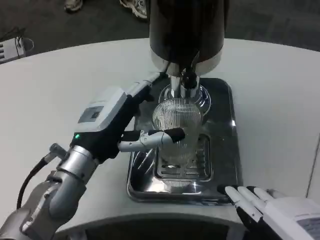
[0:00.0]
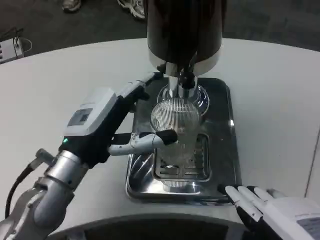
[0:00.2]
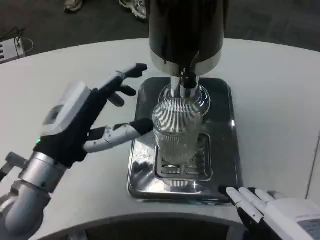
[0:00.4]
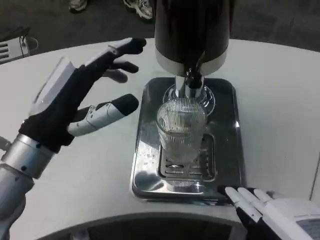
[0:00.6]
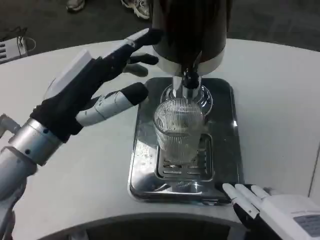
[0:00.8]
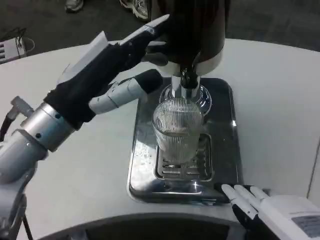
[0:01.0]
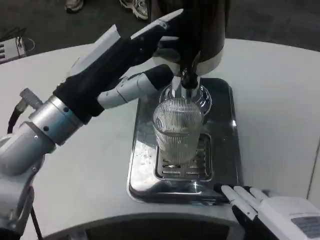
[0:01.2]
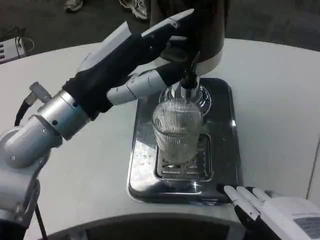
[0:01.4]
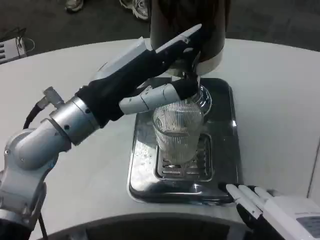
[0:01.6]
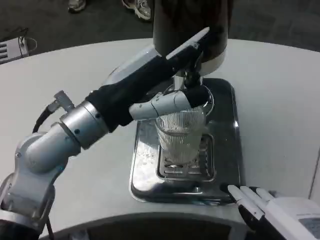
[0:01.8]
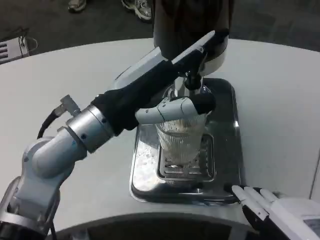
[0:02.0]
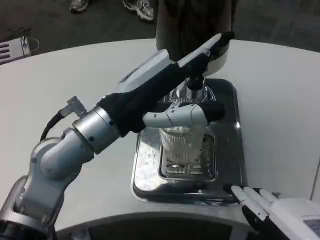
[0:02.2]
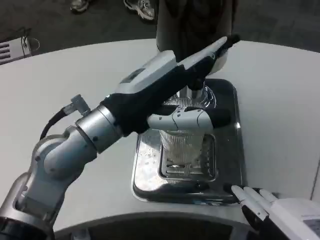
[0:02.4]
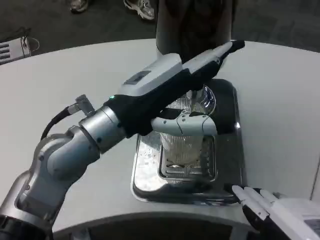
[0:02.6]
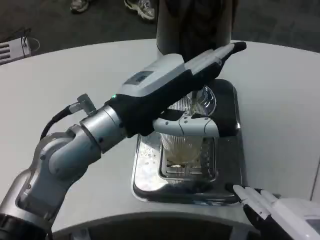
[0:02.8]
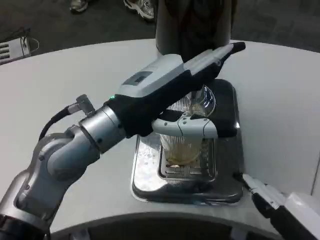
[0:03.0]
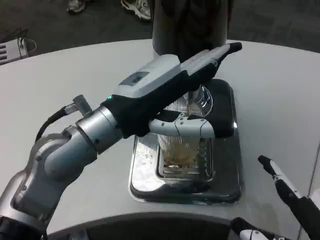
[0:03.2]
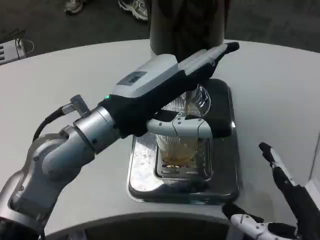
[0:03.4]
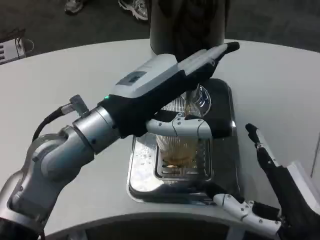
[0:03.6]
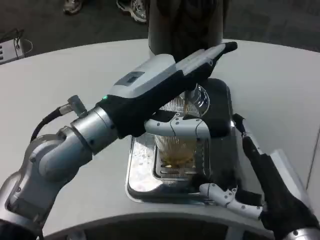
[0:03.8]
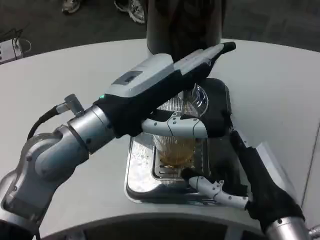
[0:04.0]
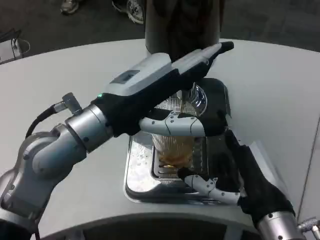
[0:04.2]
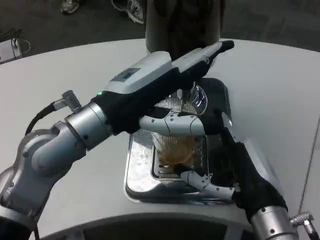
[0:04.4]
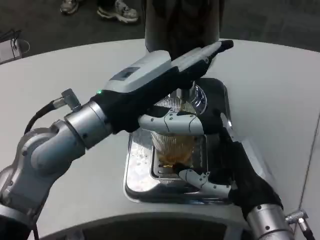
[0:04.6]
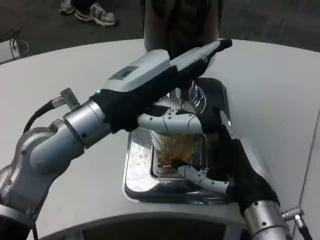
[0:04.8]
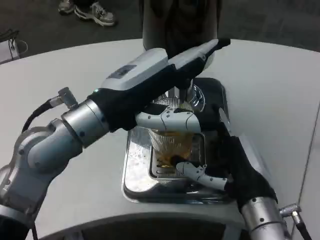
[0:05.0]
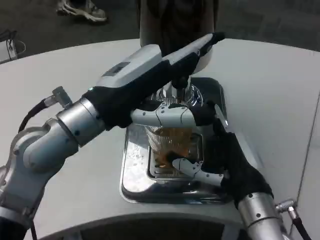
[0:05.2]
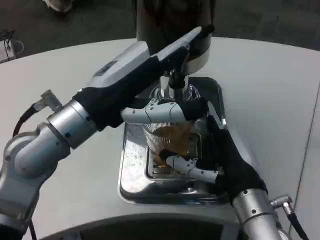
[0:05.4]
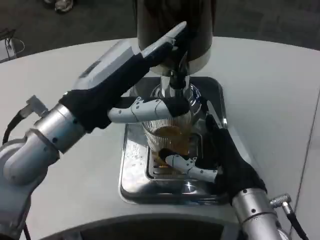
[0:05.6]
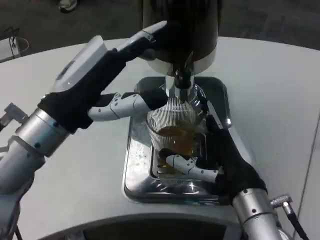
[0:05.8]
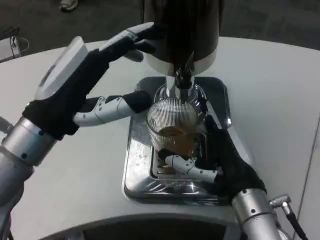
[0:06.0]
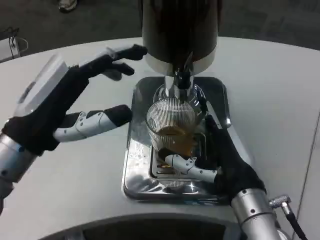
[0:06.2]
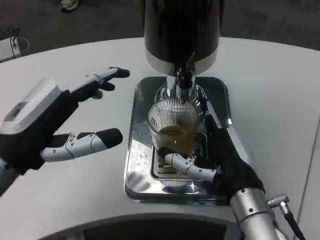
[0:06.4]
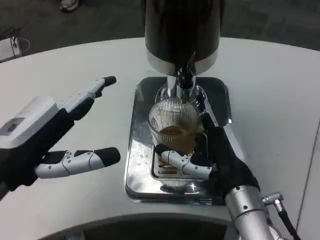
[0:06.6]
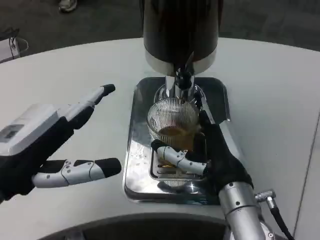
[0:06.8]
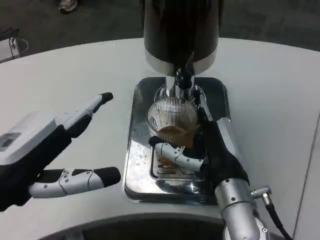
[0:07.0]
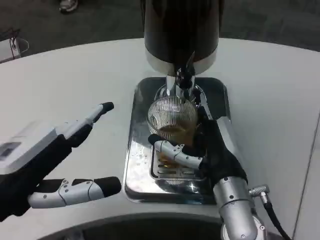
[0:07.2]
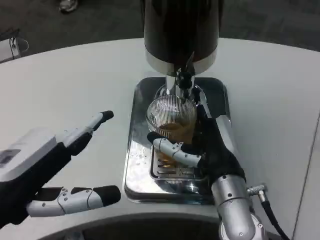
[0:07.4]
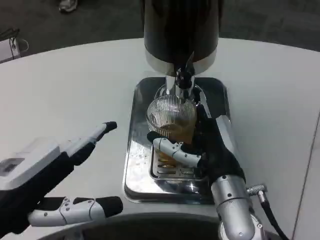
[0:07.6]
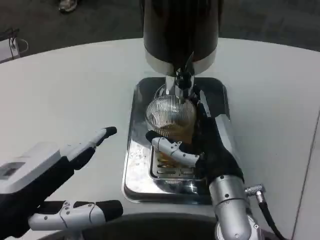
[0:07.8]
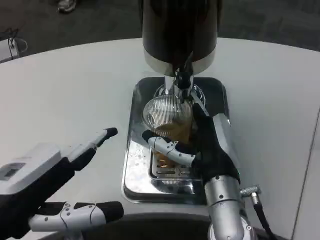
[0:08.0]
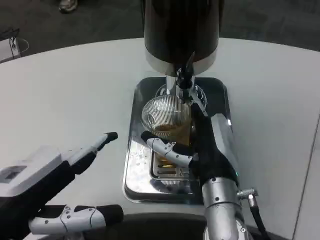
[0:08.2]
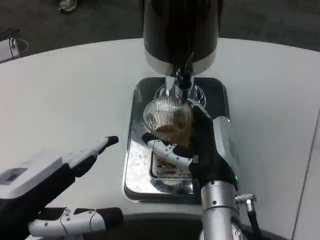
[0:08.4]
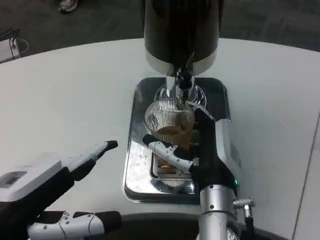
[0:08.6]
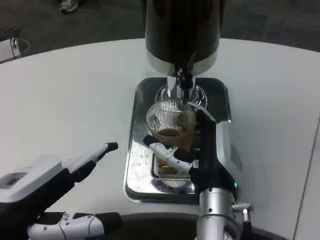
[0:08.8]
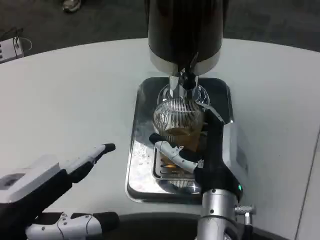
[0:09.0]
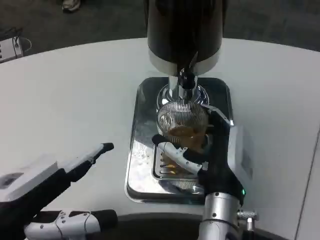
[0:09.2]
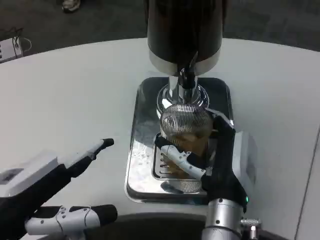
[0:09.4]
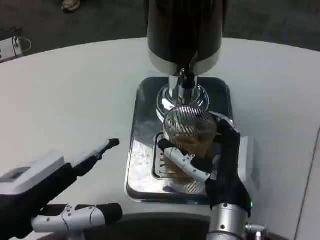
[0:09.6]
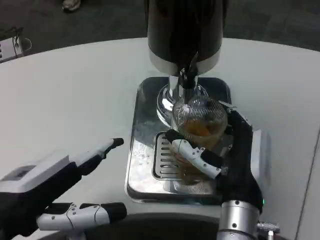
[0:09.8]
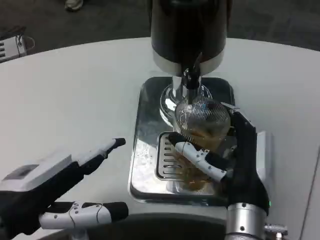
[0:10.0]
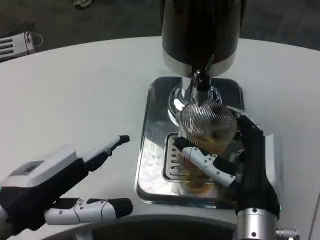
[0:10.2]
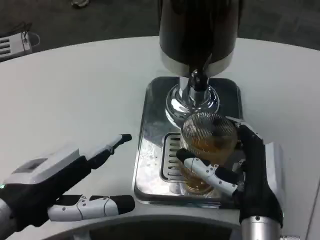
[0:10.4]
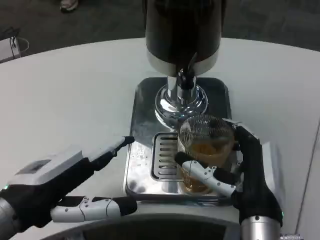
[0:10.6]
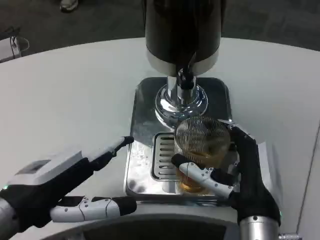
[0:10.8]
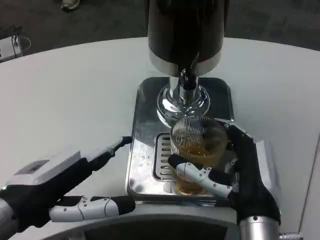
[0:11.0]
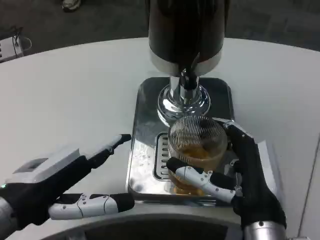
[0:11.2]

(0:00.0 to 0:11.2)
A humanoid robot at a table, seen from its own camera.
Task of the whole recording: Grasp the cup under the faucet to collect the drink, then remove the cup.
0:00.0 - 0:01.6: The left hand is displaced upward by roughly 10 cm.
0:03.2 - 0:04.8: The right hand moves forward and to the left, roughly 15 cm.
0:04.8 - 0:06.4: The left hand is displaced to the left, backward and downward by some 10 cm.
0:06.4 - 0:08.0: The left hand shifts roughly 10 cm backward.
0:09.6 - 0:11.2: The right hand moves to the right, roughly 5 cm.

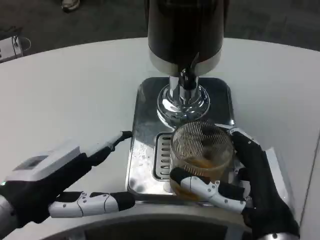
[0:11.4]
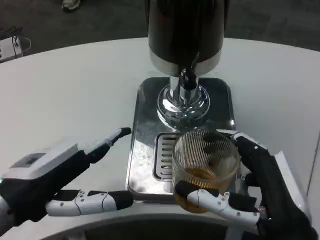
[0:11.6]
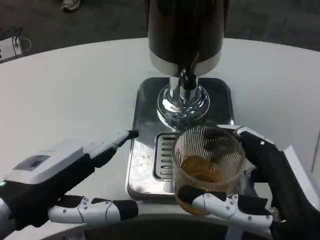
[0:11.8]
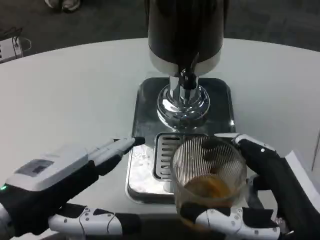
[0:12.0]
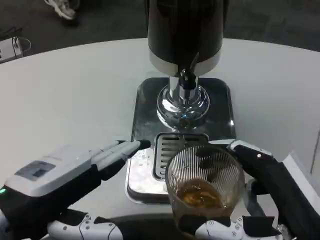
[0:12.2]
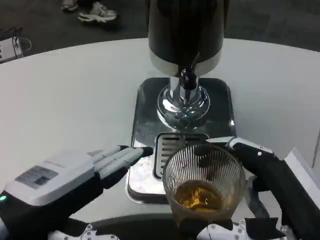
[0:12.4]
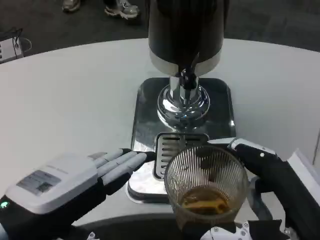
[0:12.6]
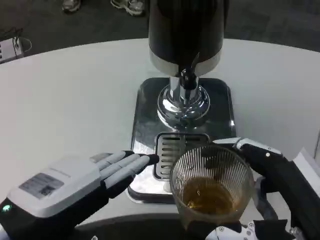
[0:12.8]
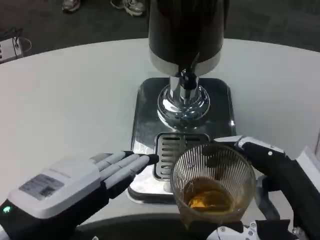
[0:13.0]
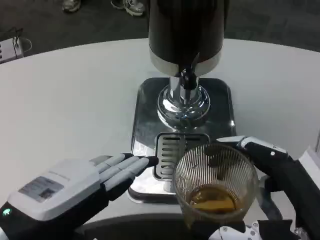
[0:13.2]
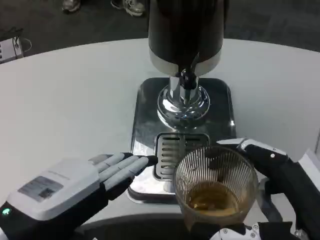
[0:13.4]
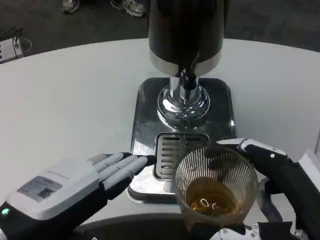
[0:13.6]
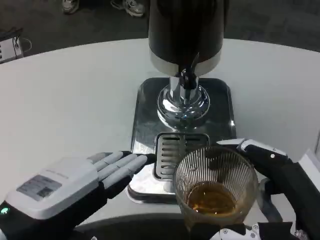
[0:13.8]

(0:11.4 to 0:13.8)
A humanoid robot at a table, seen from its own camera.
Task of the whole recording: Grasp the cup under the faucet to collect the drink, then remove the cup.
0:11.4 - 0:12.6: The right hand travels backward and to the right by approximately 10 cm.
0:12.6 - 0:13.8: Both hands stay about where they are.

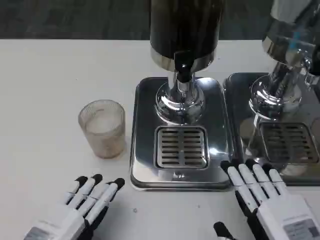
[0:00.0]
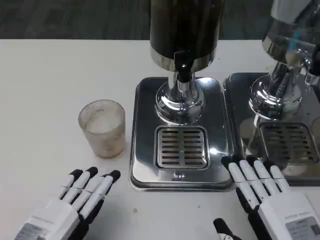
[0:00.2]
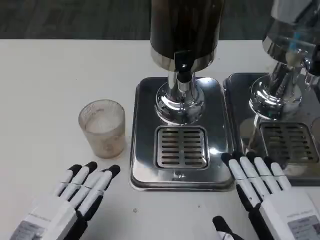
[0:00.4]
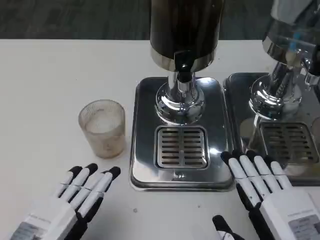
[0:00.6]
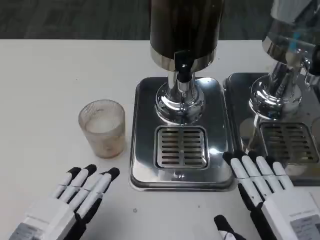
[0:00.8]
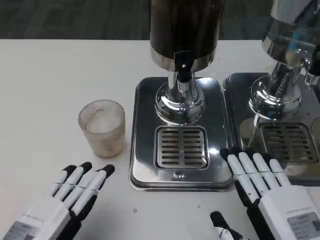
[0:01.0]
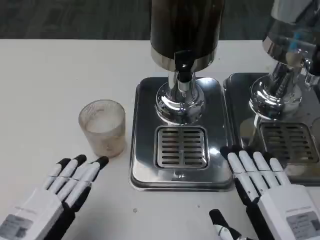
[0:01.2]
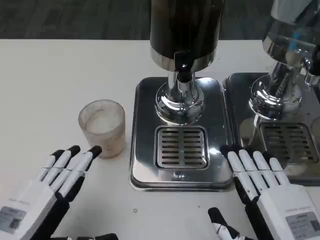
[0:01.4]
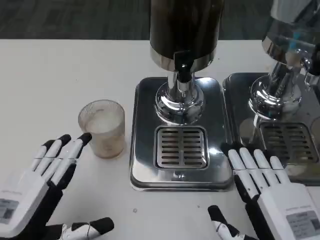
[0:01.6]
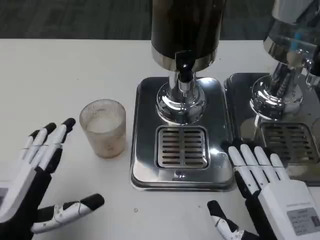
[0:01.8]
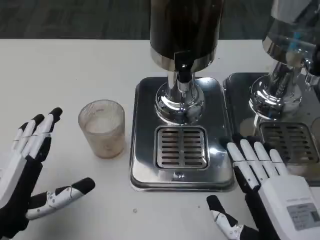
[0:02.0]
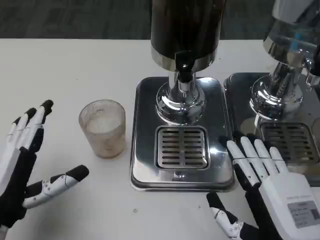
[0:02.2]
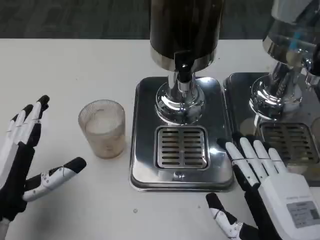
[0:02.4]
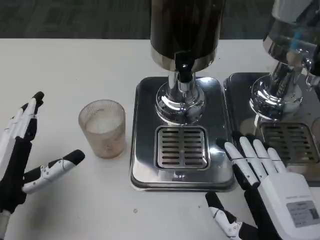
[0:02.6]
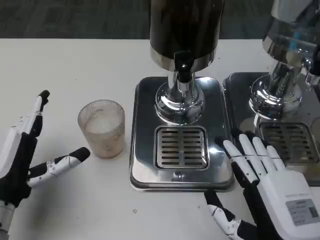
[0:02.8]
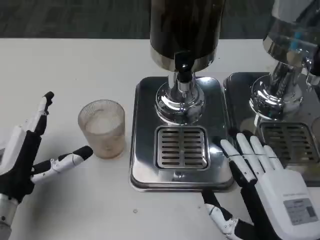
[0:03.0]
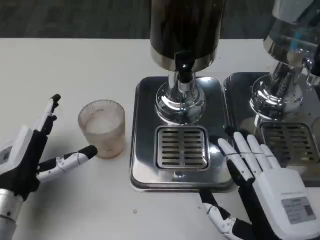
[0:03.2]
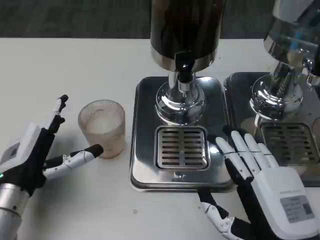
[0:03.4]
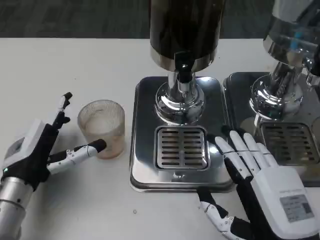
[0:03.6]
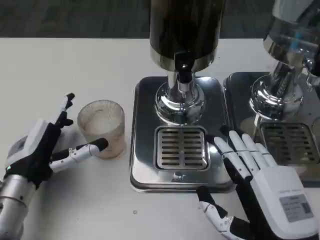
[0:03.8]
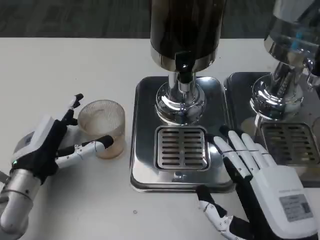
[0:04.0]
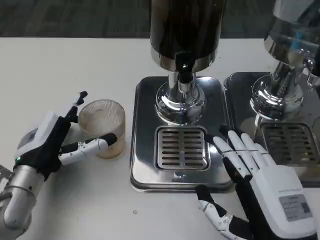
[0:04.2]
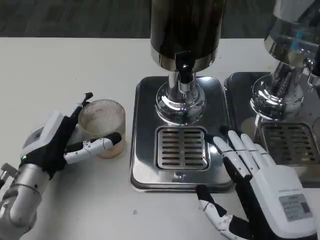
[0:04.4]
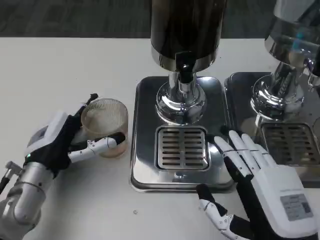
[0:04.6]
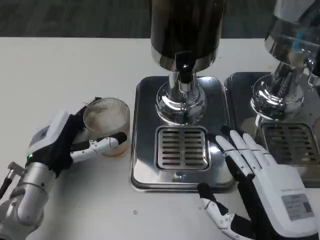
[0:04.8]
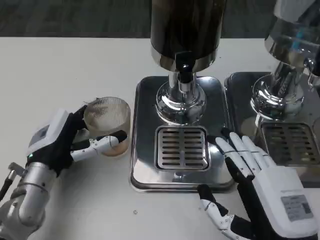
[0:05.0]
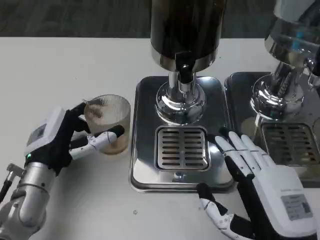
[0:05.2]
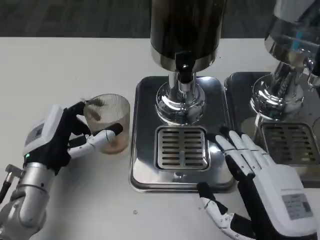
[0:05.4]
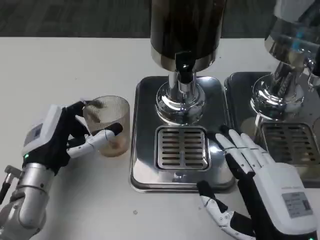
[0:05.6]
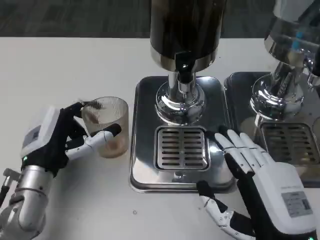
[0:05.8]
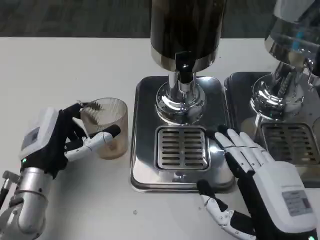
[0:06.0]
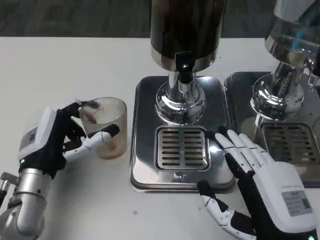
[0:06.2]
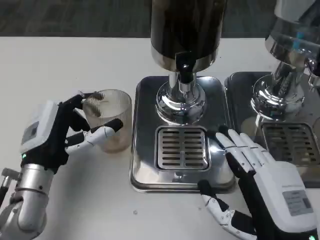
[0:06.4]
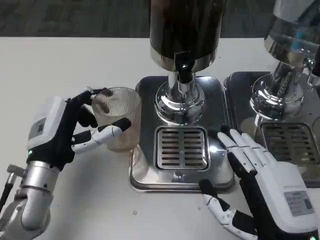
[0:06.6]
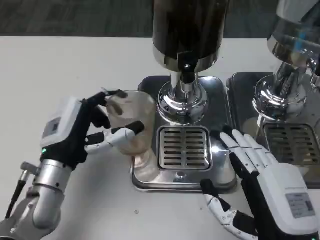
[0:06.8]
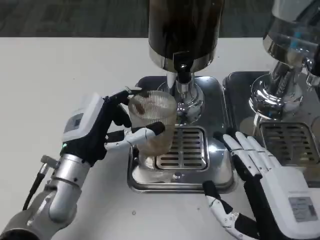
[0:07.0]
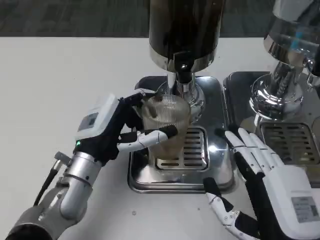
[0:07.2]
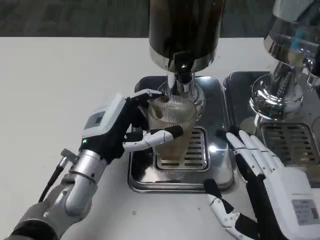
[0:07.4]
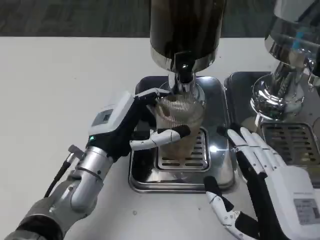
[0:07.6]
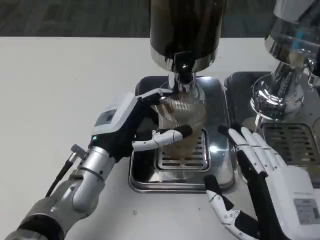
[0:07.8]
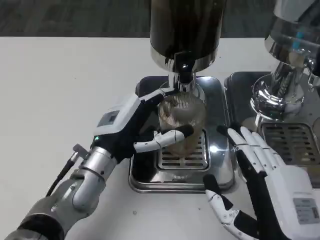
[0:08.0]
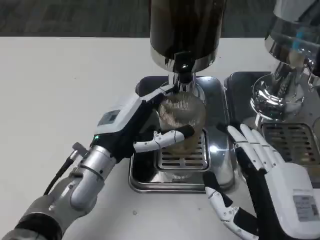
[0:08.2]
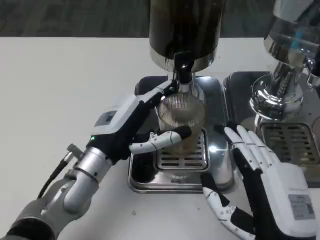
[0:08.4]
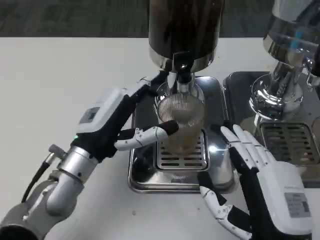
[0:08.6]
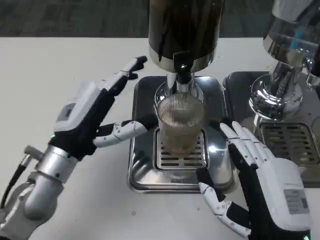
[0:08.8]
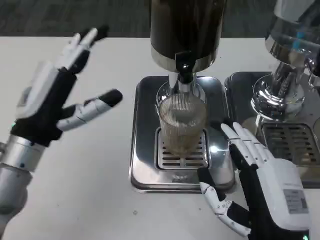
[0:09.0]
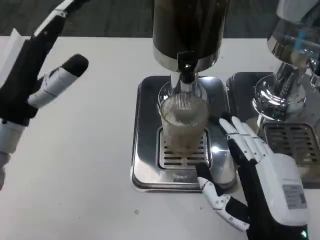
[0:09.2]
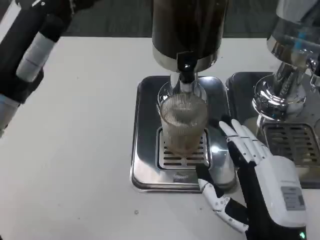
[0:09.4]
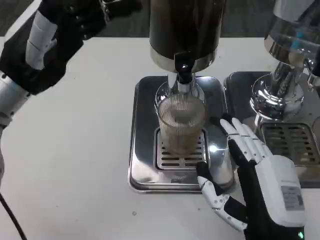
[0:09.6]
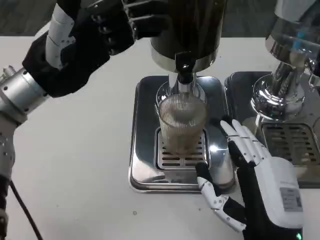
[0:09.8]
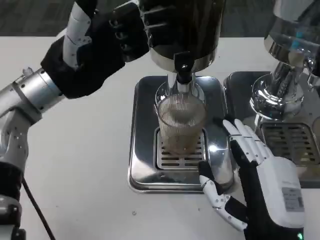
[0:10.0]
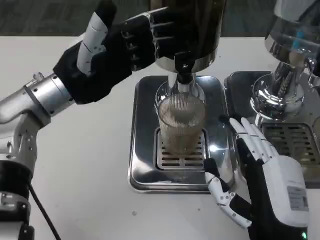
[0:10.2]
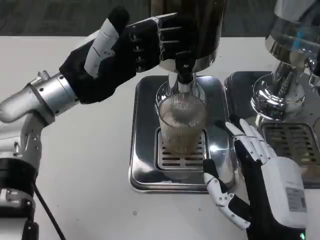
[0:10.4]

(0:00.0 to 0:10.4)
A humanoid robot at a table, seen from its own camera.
Task of the whole recording: Grasp the cup under the faucet to collect the drink, then remove the cup.
0:00.0 - 0:01.4: The hands stay close to where they were, moving slightly.
0:01.4 - 0:03.0: The left hand shifts approximately 10 cm forward.
0:03.0 - 0:04.4: The left hand moves approximately 5 cm.
0:04.4 - 0:06.0: The hands make only small movements.
0:06.0 - 0:07.4: The left hand moves to the right, approximately 5 cm.
0:07.4 - 0:09.0: The left hand heads to the left and upward, covering some 10 cm.
0:09.0 - 0:10.4: The left hand moves forward and upward, about 10 cm.
